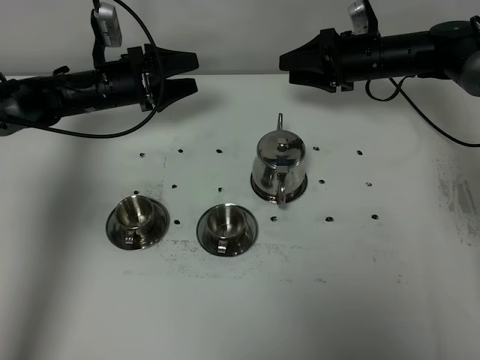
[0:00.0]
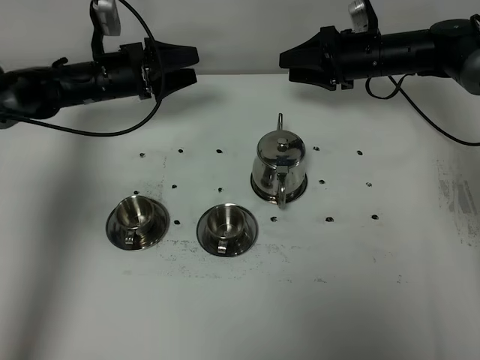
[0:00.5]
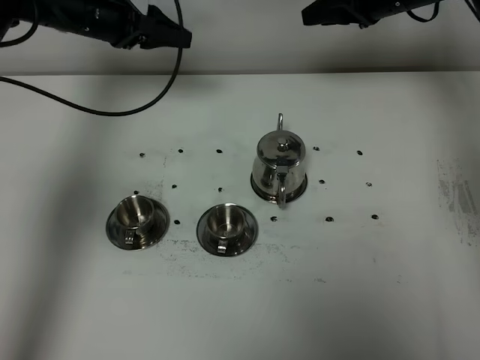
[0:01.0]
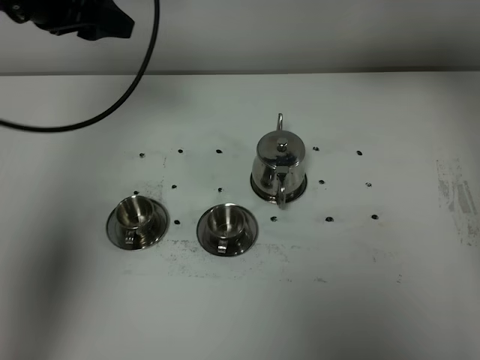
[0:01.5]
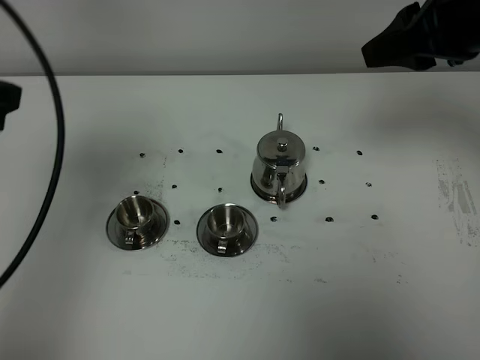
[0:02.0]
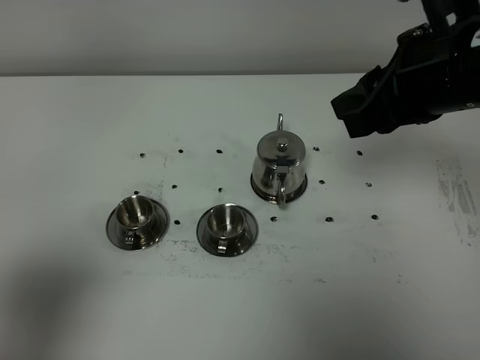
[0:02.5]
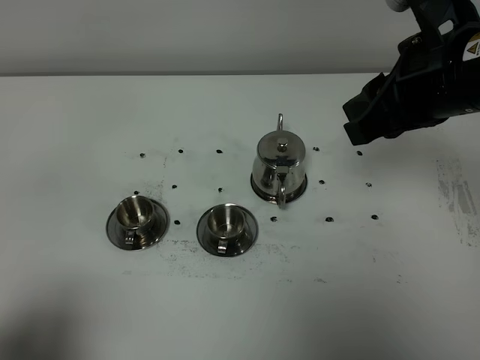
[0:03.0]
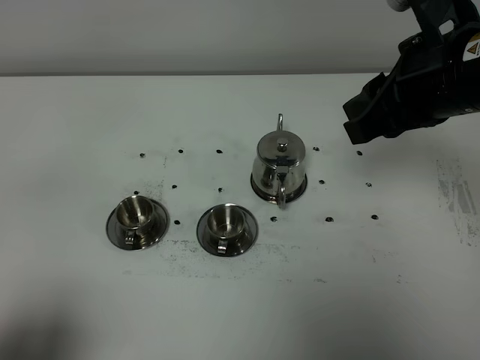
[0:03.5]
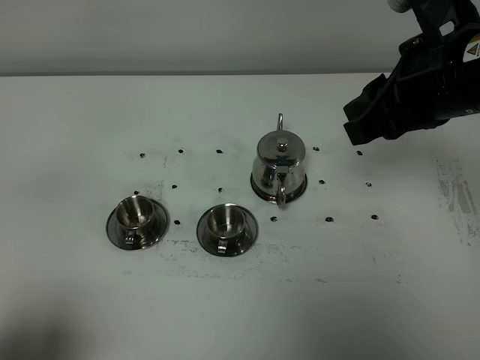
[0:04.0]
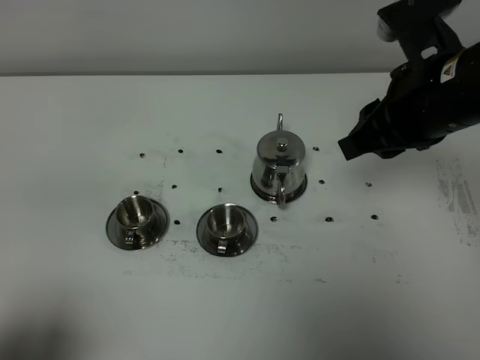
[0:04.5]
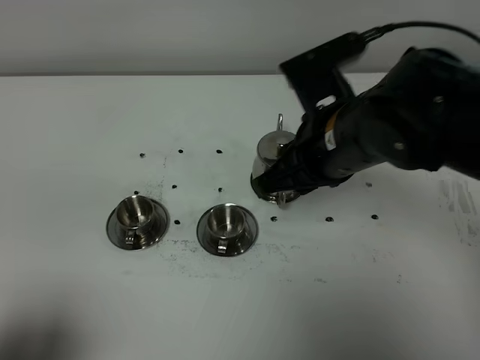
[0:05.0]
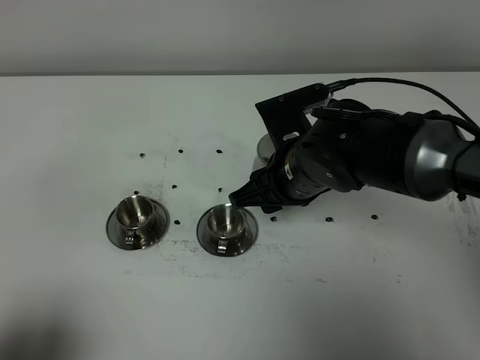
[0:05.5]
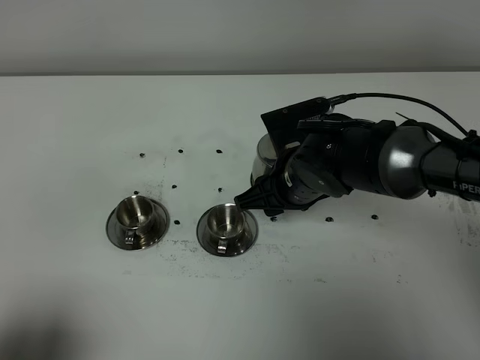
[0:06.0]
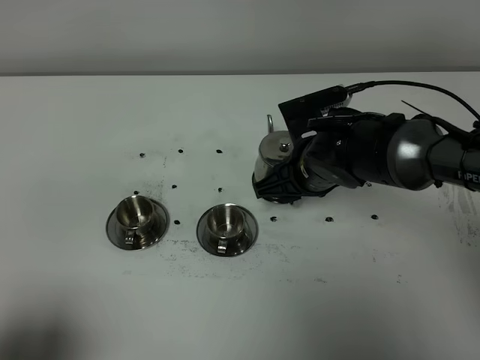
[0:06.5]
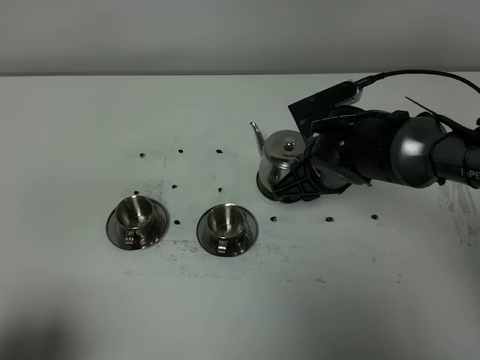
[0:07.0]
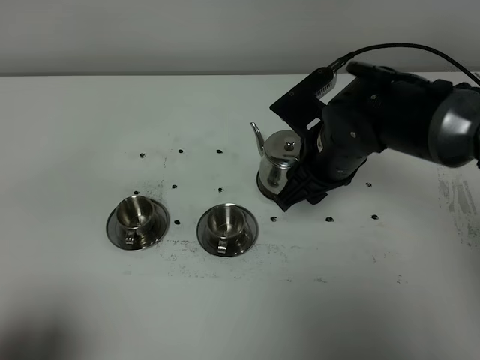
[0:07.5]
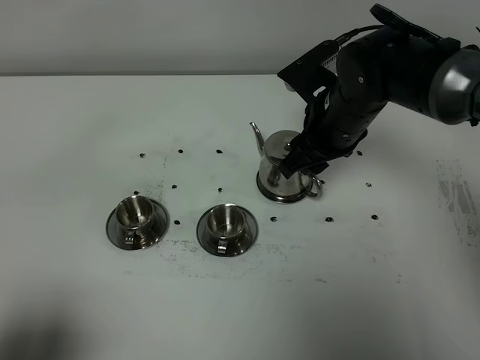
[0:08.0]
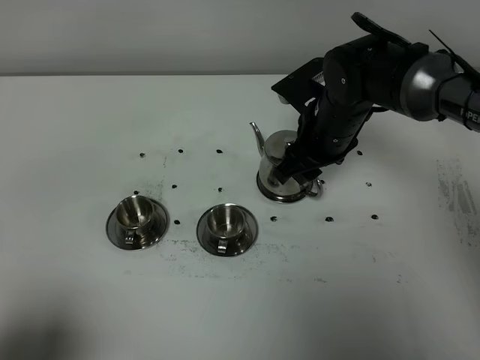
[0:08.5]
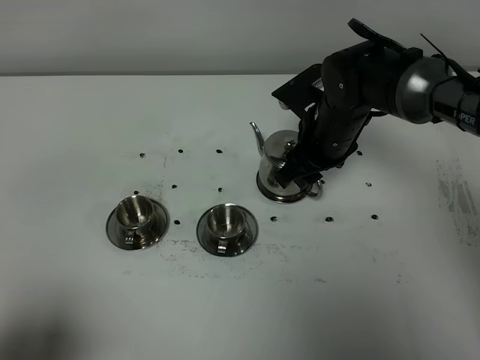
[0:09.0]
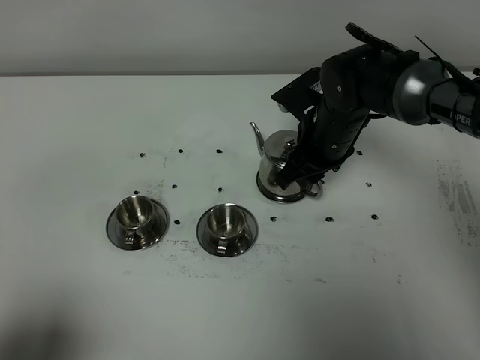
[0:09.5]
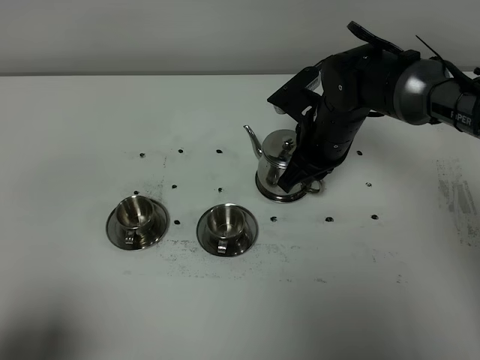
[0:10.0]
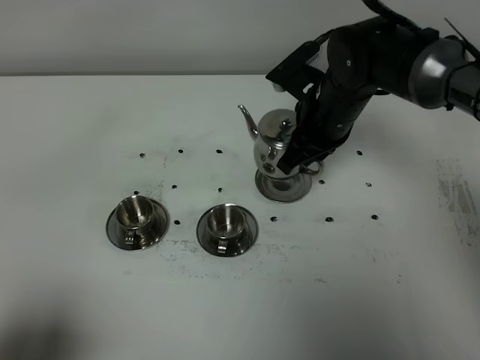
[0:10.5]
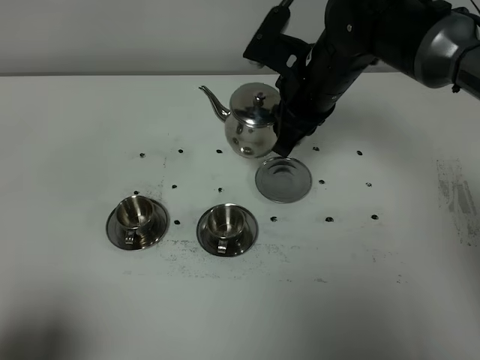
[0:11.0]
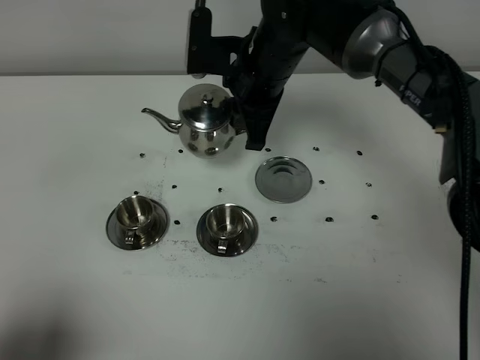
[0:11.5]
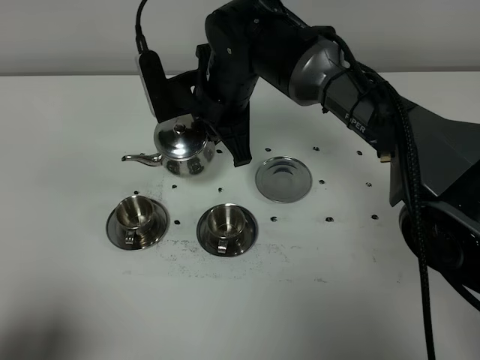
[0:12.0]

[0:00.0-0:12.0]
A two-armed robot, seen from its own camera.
Task of the whole recording: grasp the stainless steel teapot and pour the tea into the two stainless steel teacups one by one, put the stainless steel teapot back in its original place.
Step, 0:00.0 to 0:10.0: Pick up the teapot with the right gripper.
0:00.0 to 0:02.0: Both grippers move backward and upward, about 35 cm. The left gripper closes up.
0:02.0 to 0:04.0: The right gripper shifts by some 5 cm. The left gripper shifts some 25 cm backward and downward.
0:04.0 to 0:06.0: The right gripper travels downward and to the left by some 20 cm.
0:06.0 to 0:08.0: The right gripper travels upward and forward by roughly 5 cm.
0:08.0 to 0:10.0: The right gripper changes place by approximately 5 cm, and closes its fingers.
0:10.0 to 0:12.0: The right gripper heads to the left and upward, covering roughly 15 cm.

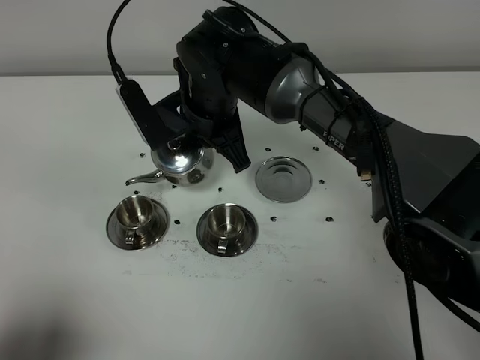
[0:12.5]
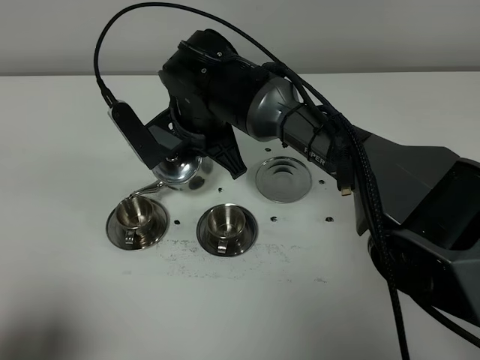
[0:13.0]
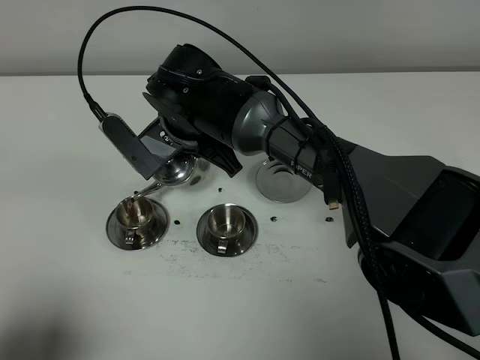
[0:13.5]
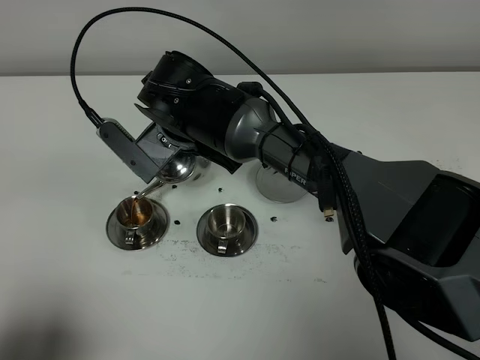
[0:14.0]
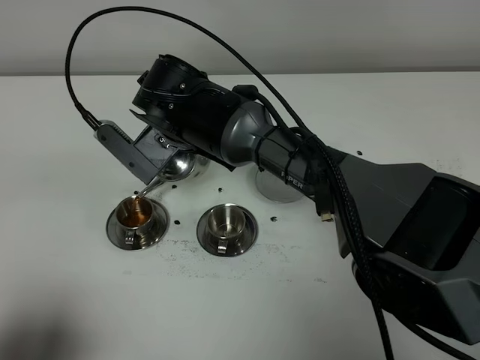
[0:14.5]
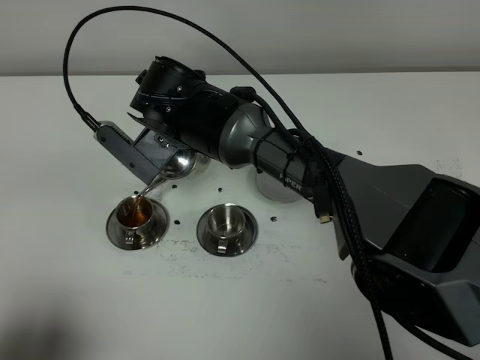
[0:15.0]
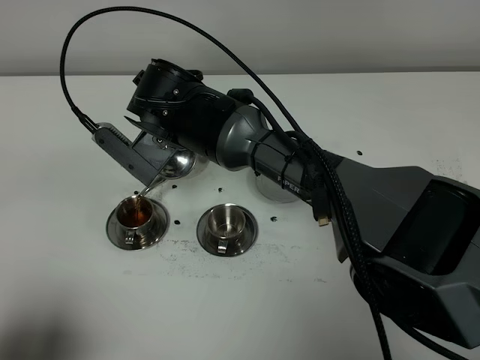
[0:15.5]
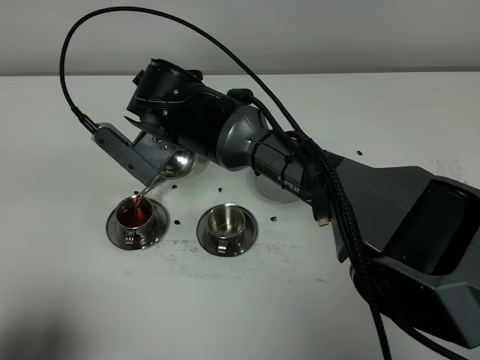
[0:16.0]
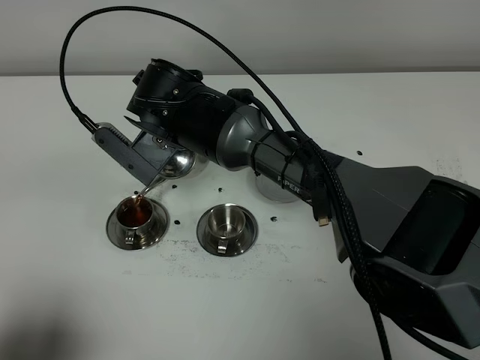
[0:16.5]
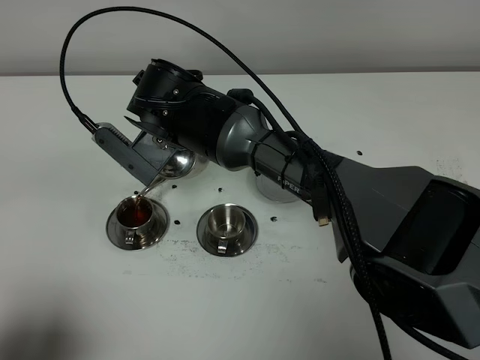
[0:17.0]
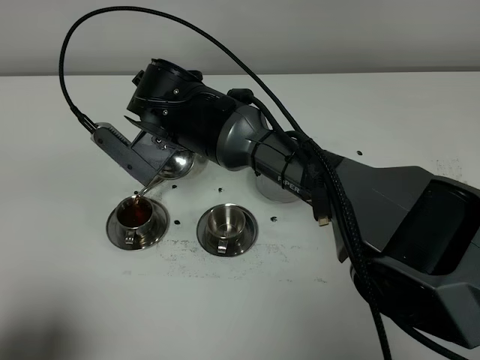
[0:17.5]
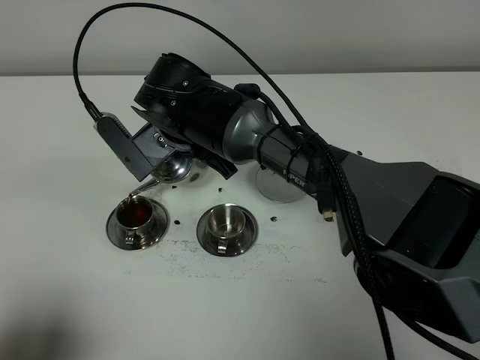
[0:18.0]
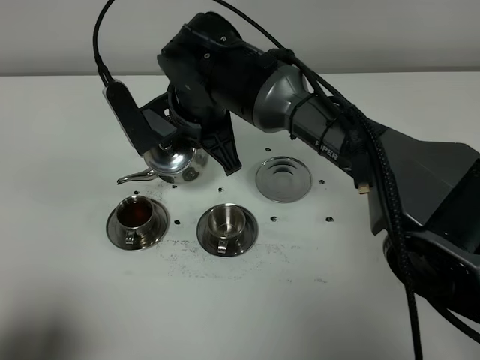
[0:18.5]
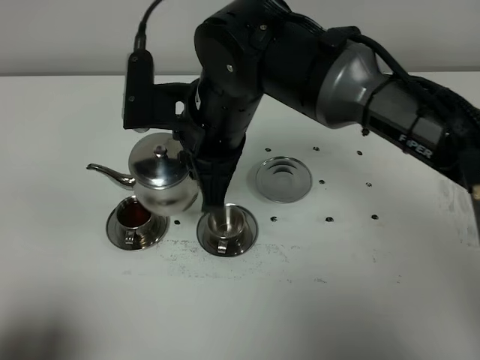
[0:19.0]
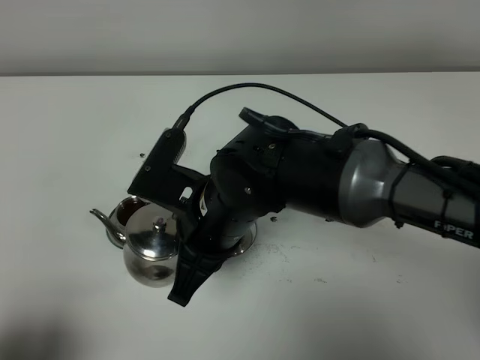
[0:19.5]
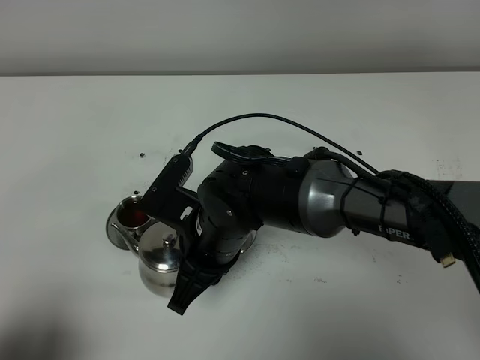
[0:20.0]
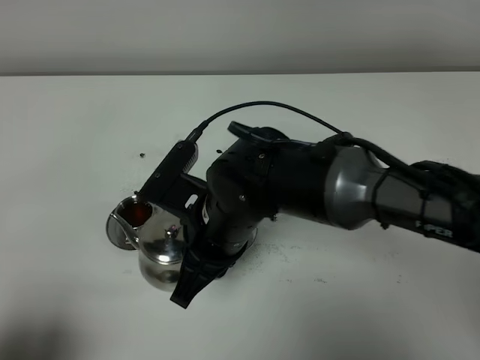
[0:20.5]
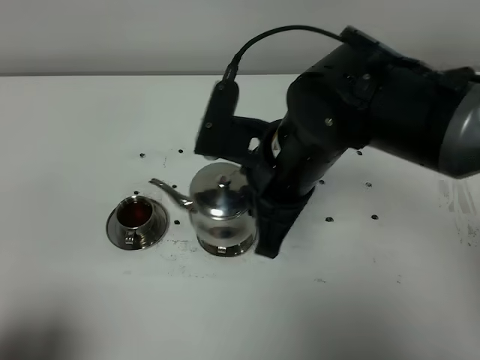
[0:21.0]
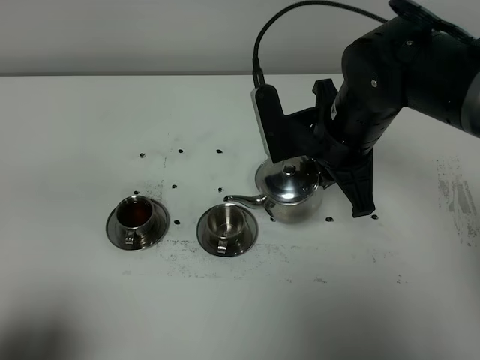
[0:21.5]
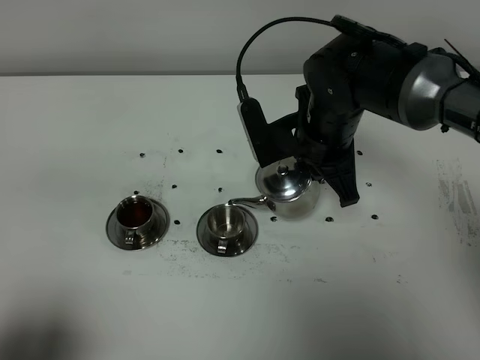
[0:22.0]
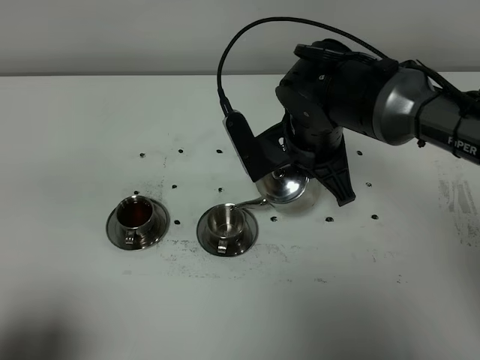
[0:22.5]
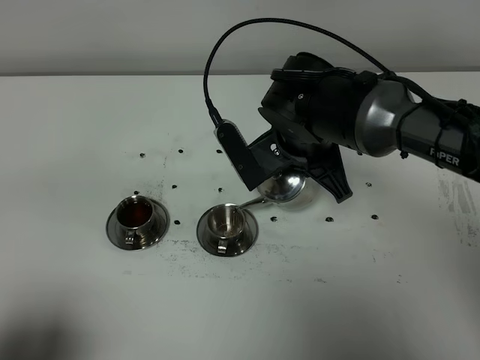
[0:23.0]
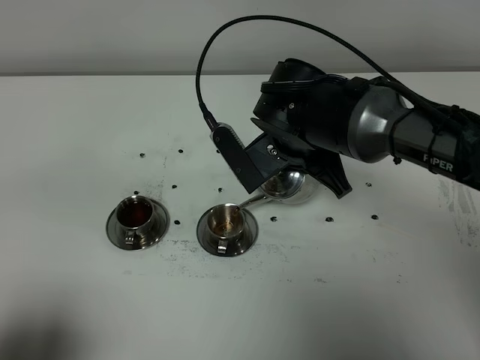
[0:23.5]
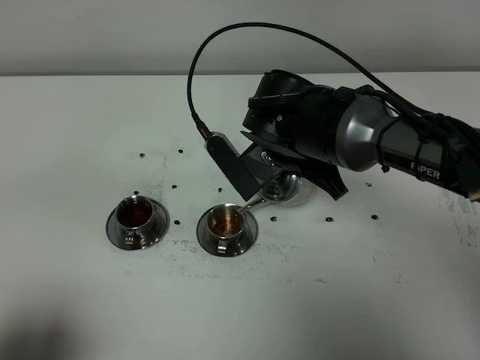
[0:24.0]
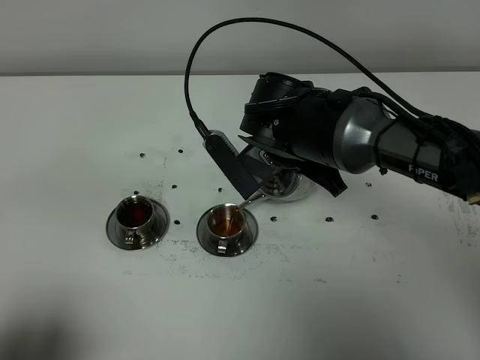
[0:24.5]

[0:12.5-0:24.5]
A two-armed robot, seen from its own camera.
Task of the whole recording: grasp the stainless steel teapot and pour the tea into the two stainless steel teacups one by one, put the stainless steel teapot back in its original place.
0:14.5 to 0:16.5: The two grippers keep their place.
0:18.5 to 0:20.5: The right gripper travels backward by approximately 15 cm.
0:20.5 to 0:22.5: The right gripper moves forward and to the right, roughly 15 cm.
0:22.5 to 0:24.5: The grippers make only small movements.

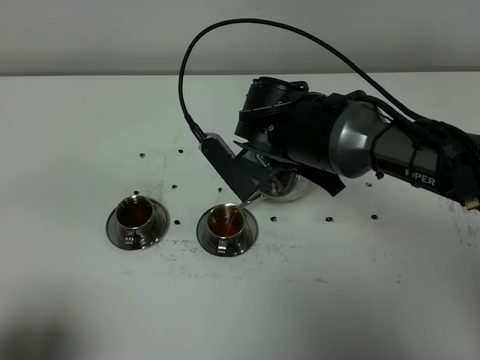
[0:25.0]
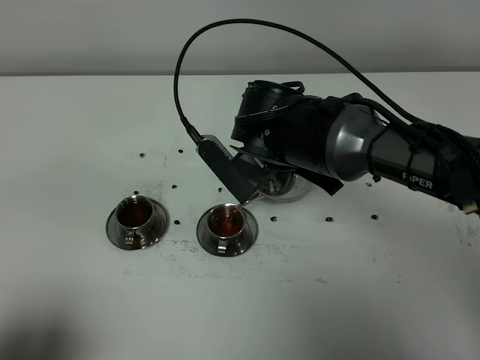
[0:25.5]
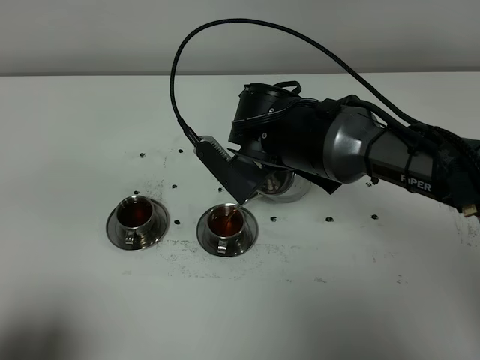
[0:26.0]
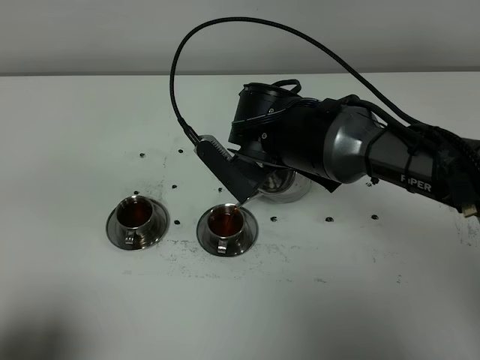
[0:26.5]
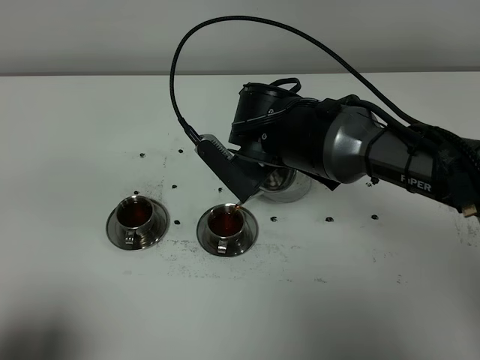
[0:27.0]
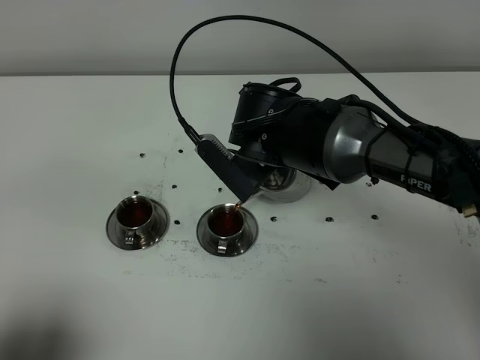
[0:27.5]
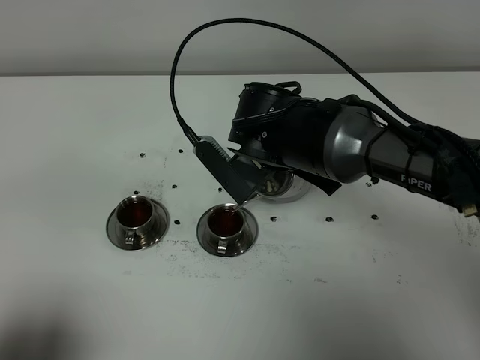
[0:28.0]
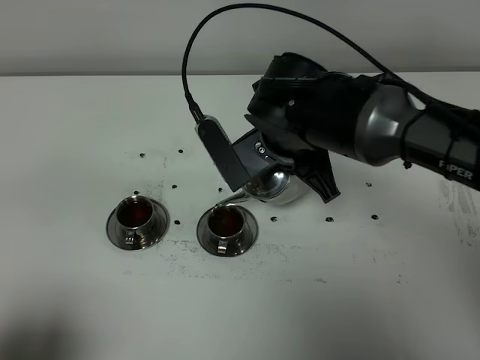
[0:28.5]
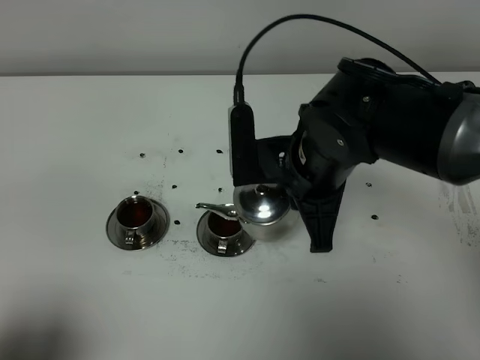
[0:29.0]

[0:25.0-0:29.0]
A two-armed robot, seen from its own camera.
Task of the whole recording: grasp the stainless steel teapot and pour the tea into the two stainless steel teacups one by one, put the stainless steel teapot back in its original place.
Step, 0:25.0 to 0:28.5: Pour tea into the teacup with the right gripper.
0:25.0 to 0:27.0: Neither gripper changes place.
0:27.0 to 0:29.0: The right gripper moves backward, approximately 5 cm.
